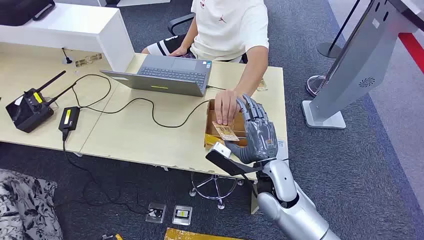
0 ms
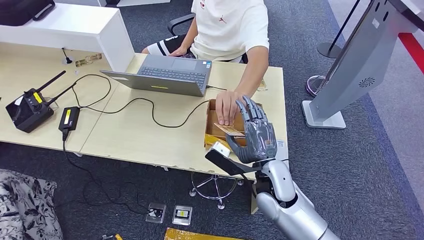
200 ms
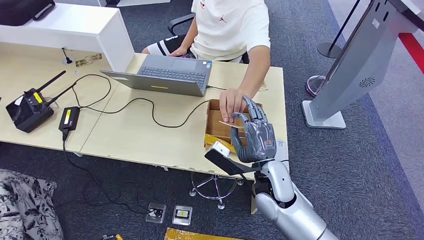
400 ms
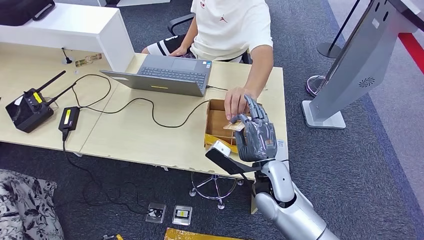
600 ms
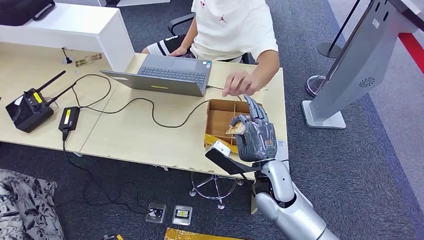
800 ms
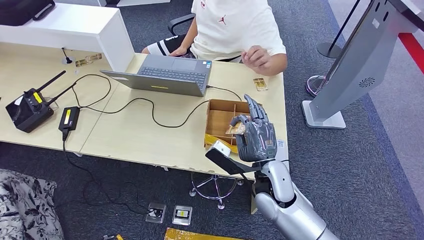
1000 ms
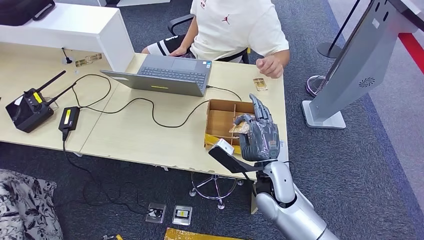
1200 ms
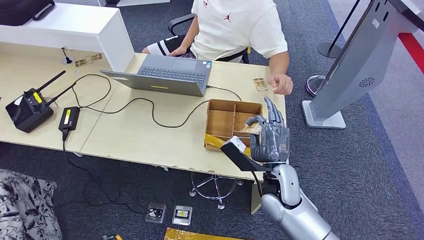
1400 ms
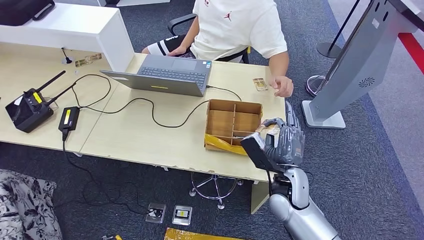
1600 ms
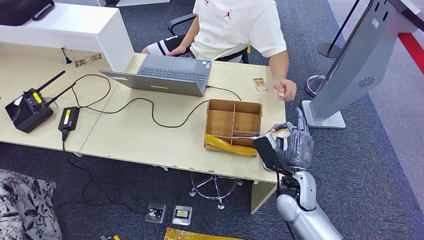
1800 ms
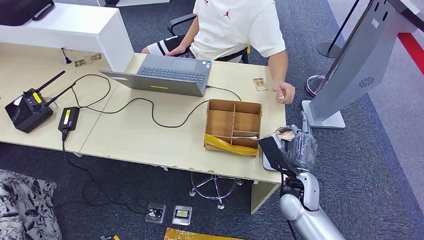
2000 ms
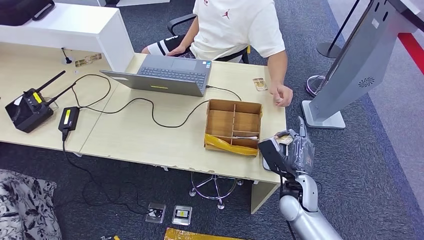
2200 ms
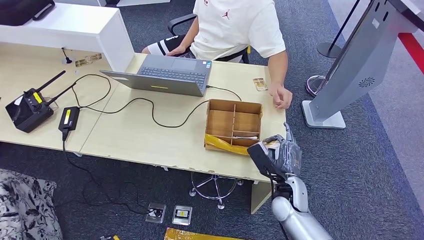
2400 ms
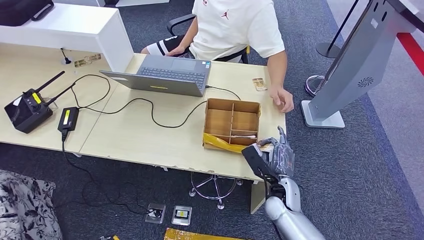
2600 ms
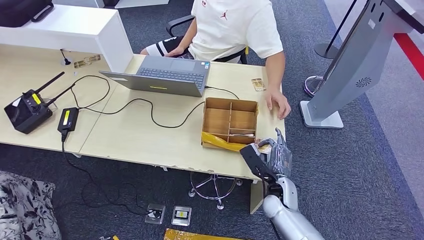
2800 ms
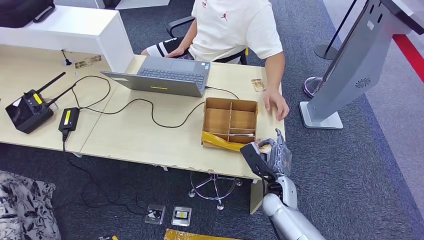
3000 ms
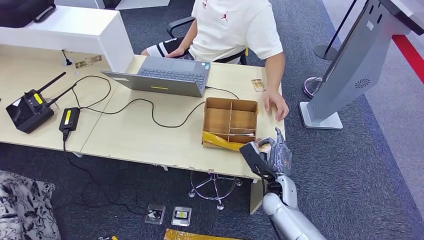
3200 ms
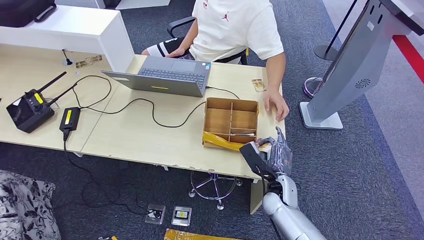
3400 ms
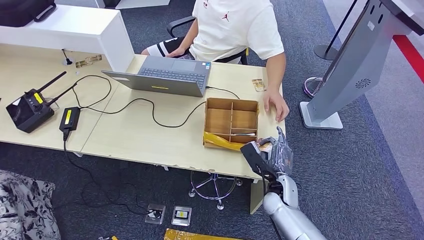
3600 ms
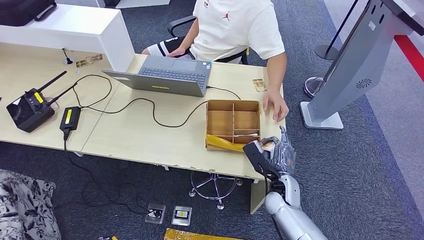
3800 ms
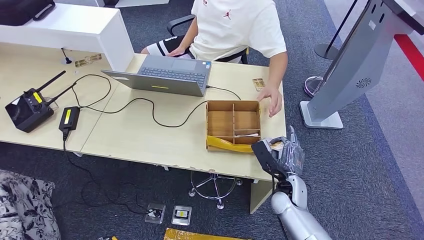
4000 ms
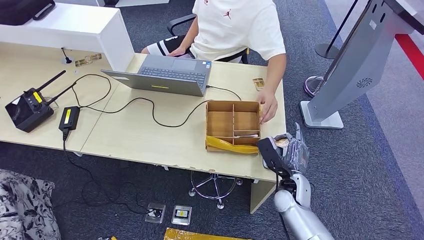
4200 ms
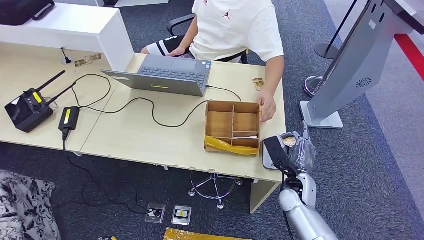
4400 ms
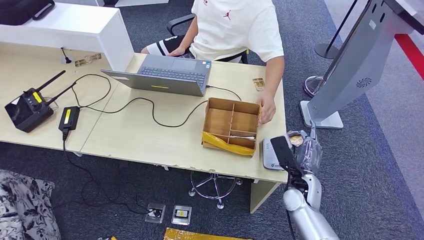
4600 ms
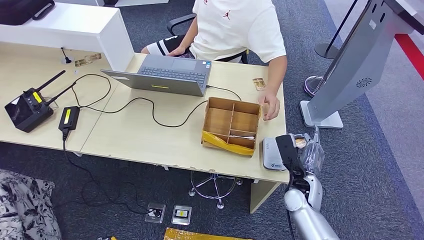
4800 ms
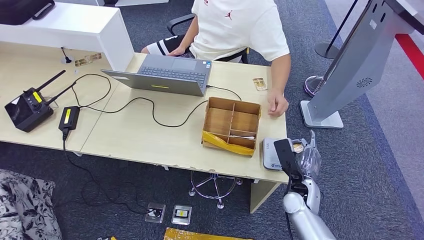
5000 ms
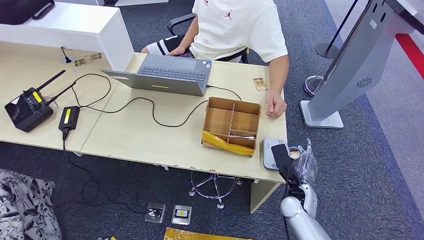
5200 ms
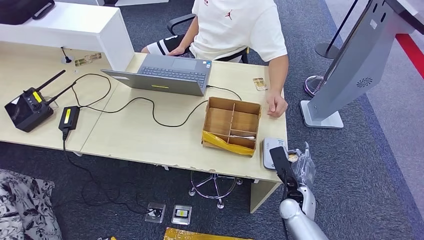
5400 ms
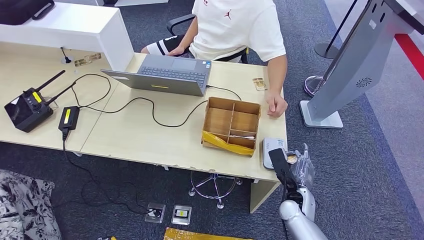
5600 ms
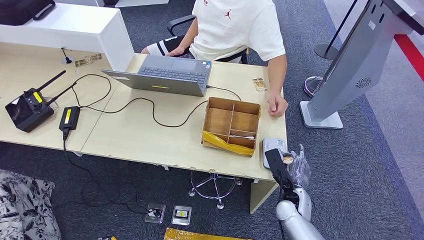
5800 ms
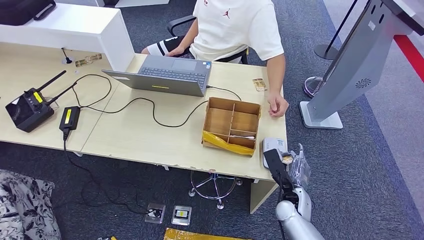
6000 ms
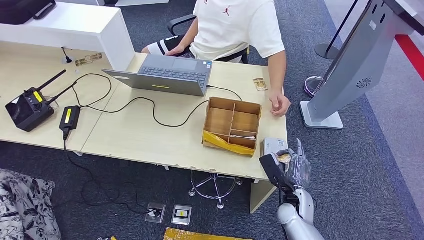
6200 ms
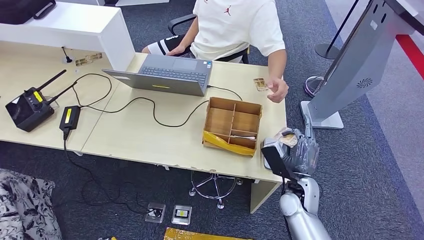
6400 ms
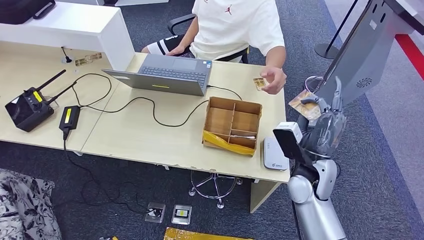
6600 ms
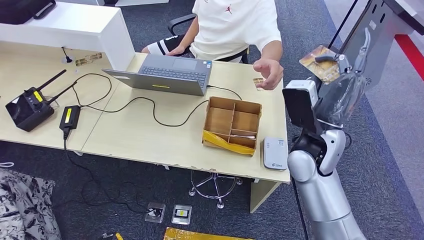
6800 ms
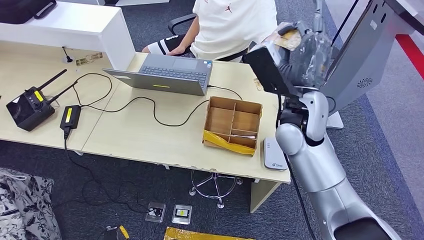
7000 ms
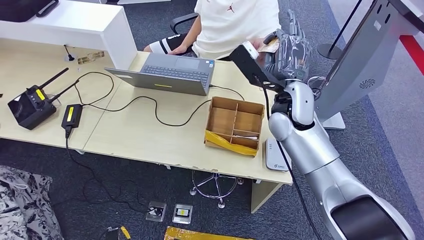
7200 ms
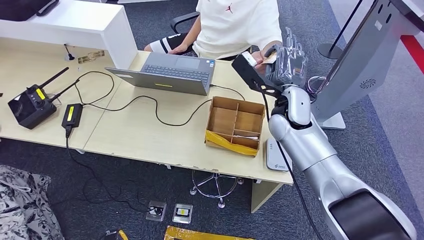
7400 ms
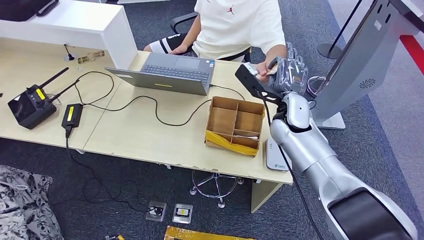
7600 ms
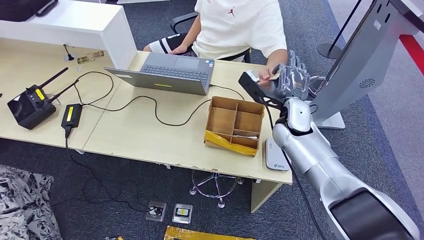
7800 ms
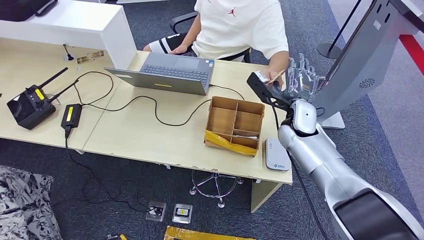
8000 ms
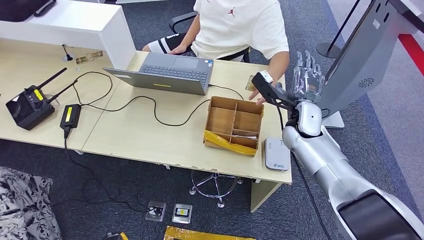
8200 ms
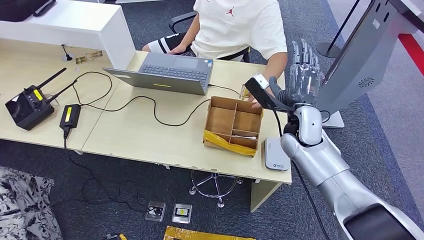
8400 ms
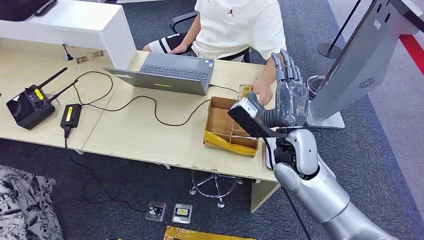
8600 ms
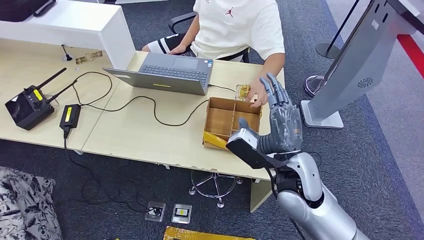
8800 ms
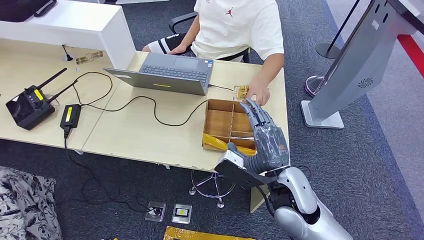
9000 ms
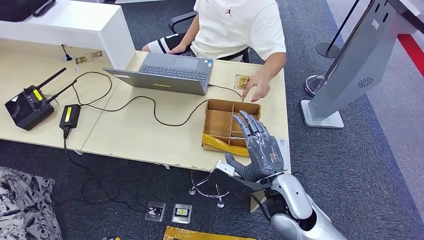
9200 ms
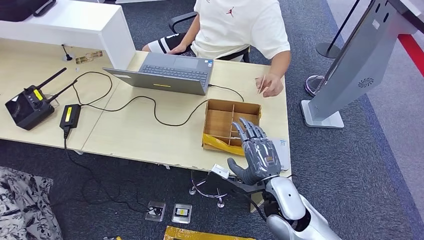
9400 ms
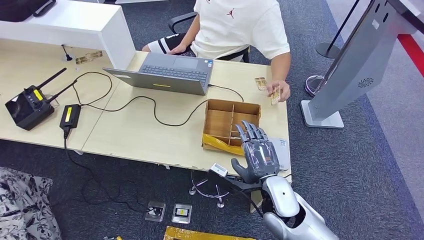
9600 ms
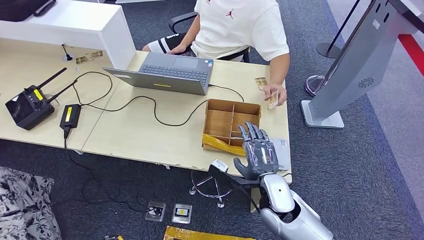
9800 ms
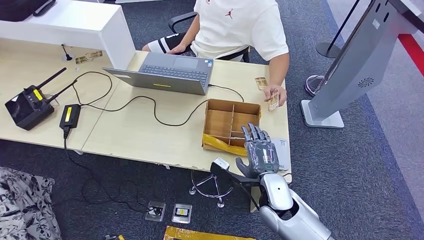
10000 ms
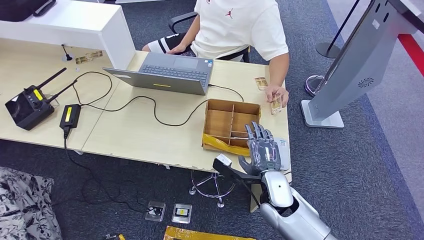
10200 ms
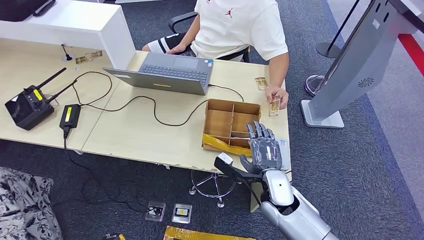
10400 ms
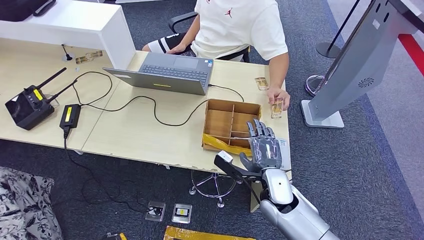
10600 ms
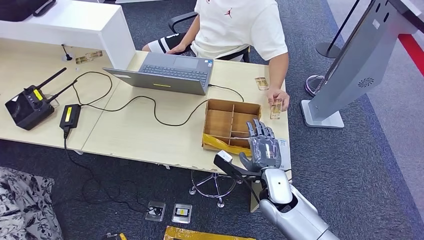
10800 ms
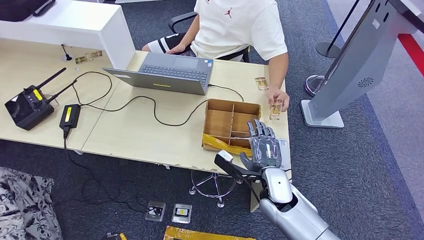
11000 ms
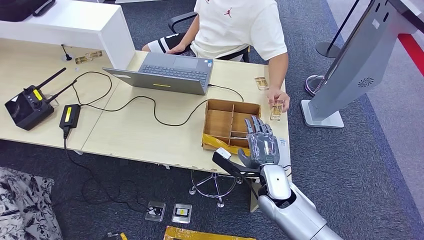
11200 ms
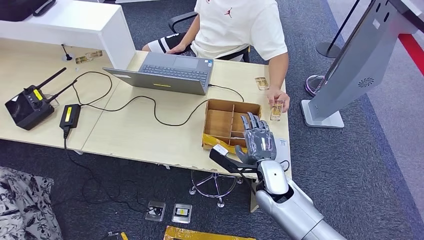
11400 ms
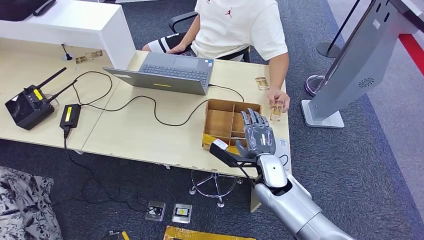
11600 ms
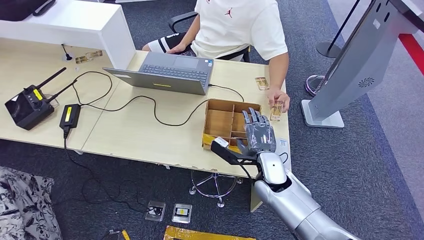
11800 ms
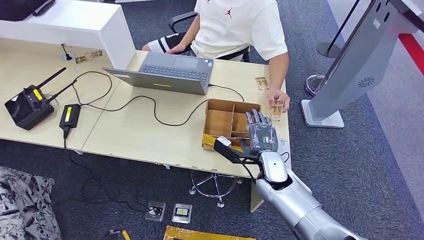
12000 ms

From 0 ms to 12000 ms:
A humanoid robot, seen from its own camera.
Step, from 0 ms to 1200 ms: Take the ID card from the person's hand.
Step, from 1400 ms to 6400 ms: Place the ID card on the card reader.
Step, from 6600 ms to 9400 ms: Hand the ID card to the person.
From 1600 ms to 3000 ms: The right hand goes about 10 cm downward.
From 3000 ms to 4400 ms: The hands move only a little.
From 4400 ms to 6000 ms: The right hand changes place by some 5 cm.
From 9000 ms to 10400 ms: The right hand travels downward by about 10 cm.
From 10400 ms to 12000 ms: The right hand is displaced forward by approximately 5 cm.

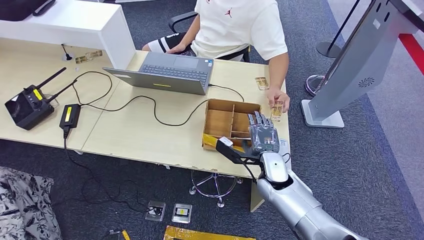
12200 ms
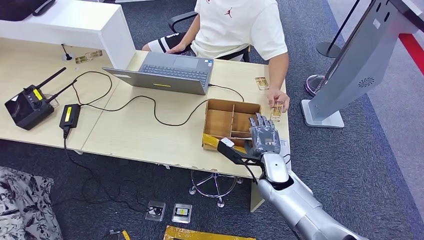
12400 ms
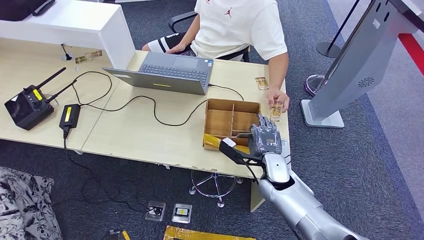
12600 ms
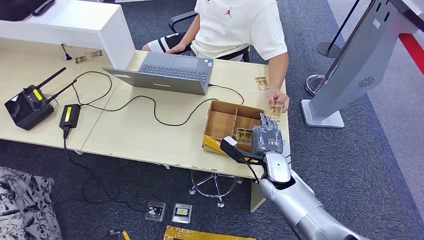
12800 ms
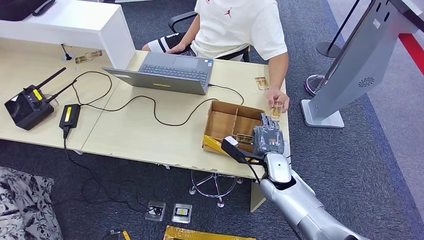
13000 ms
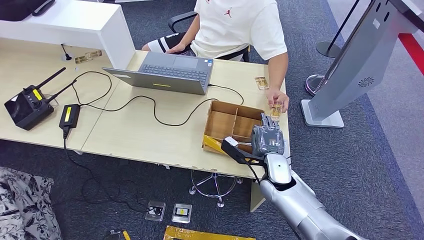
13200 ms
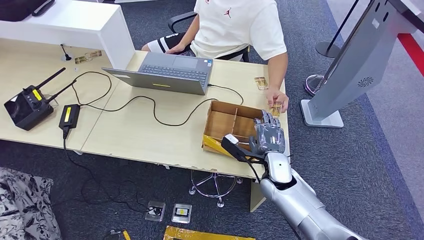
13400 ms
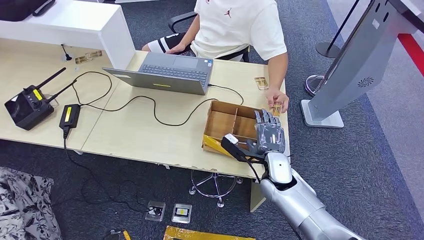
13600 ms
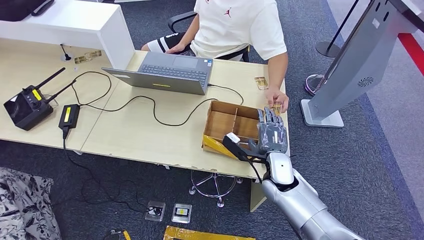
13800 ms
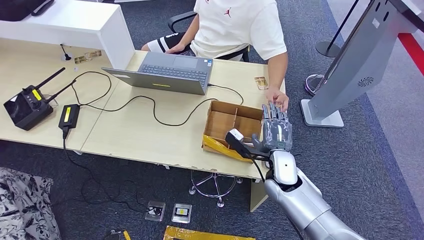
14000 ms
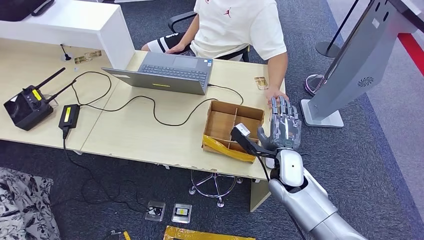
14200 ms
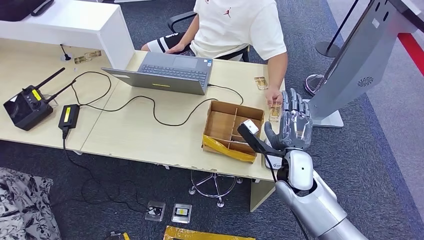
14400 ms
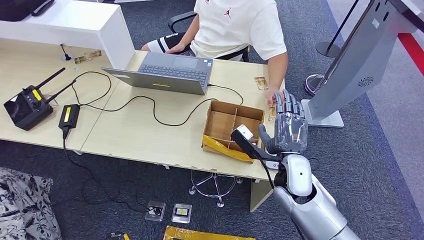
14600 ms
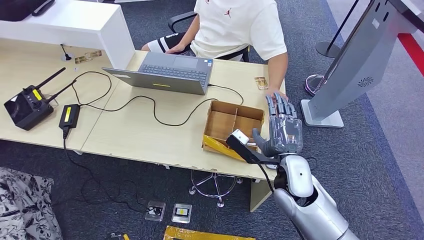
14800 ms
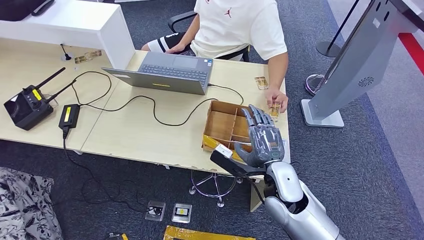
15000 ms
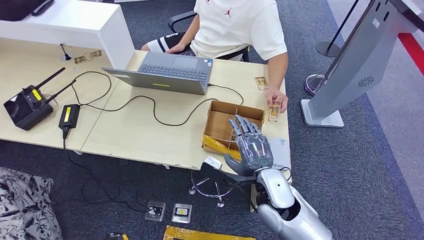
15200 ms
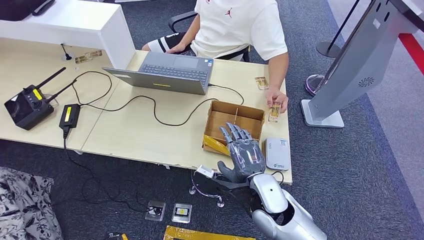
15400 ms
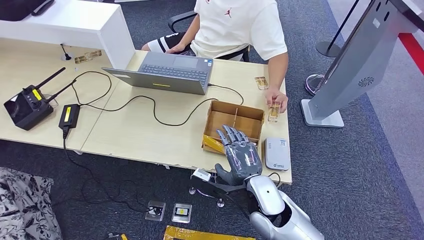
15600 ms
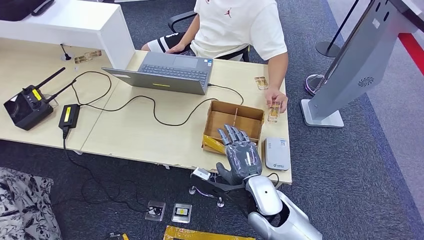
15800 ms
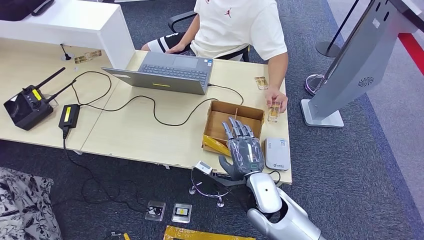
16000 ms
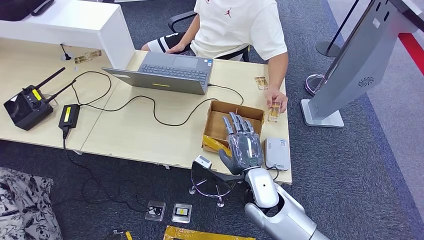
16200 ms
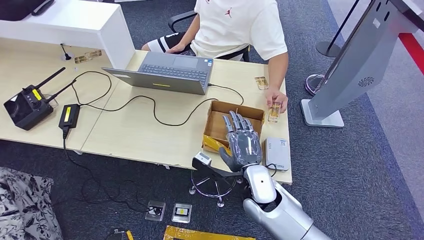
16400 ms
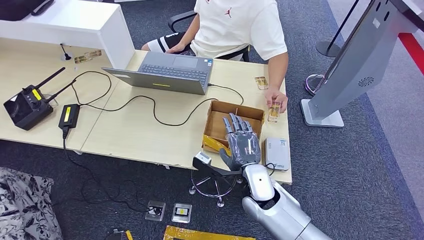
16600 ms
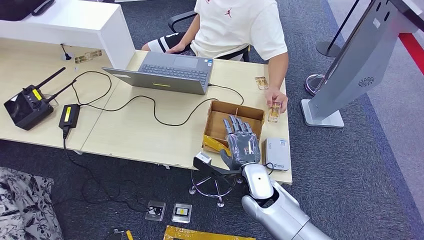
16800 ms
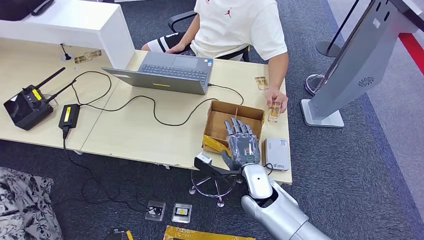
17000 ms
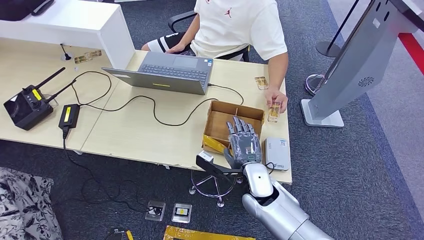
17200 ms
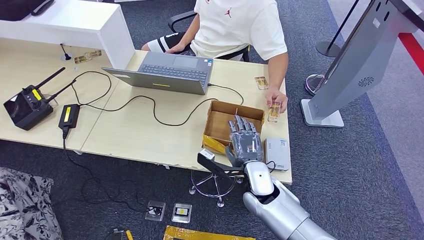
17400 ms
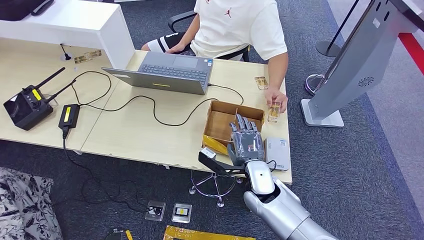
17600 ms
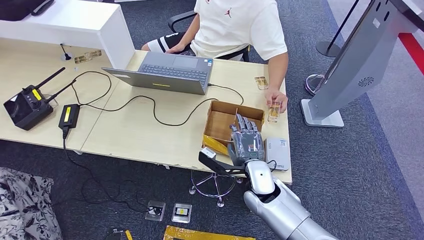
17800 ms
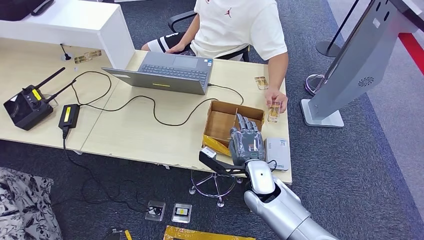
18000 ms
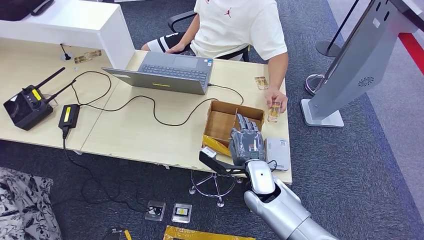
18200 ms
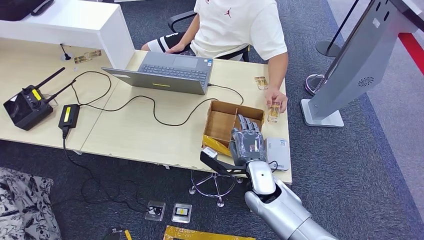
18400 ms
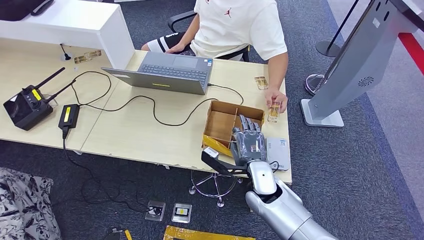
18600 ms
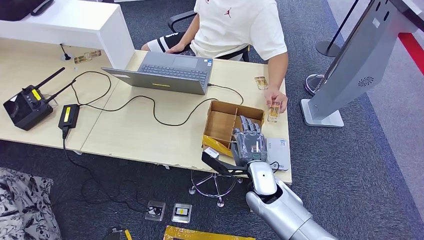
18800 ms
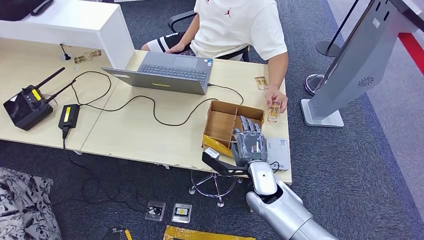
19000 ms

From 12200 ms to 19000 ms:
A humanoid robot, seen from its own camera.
From 12200 ms to 13600 ms: Both hands stay about where they are.
From 13600 ms to 15000 ms: The right hand goes approximately 10 cm upward and backward.
From 15000 ms to 16200 ms: The right hand ends up approximately 5 cm from where it was.
From 16200 ms to 17600 ms: The hands make only small movements.
From 17600 ms to 19000 ms: Neither hand changes place.
